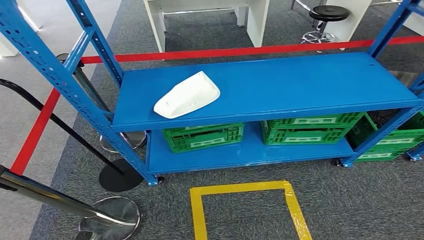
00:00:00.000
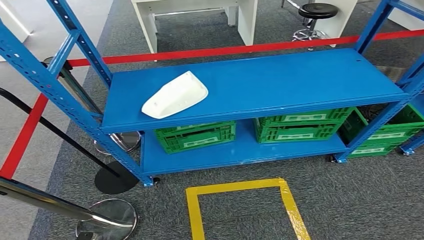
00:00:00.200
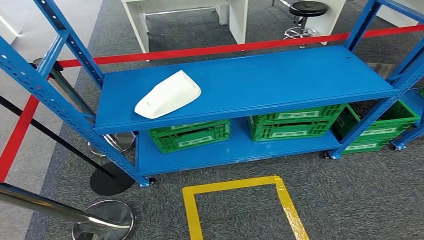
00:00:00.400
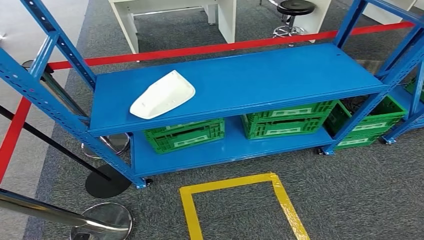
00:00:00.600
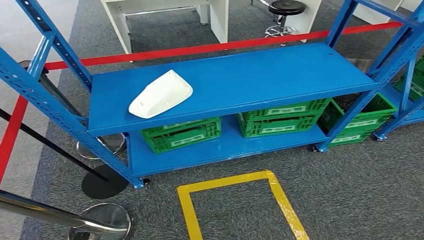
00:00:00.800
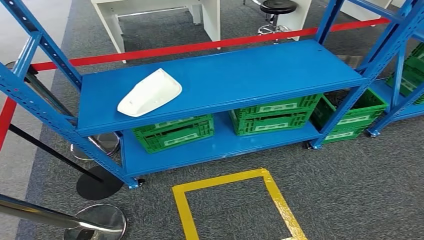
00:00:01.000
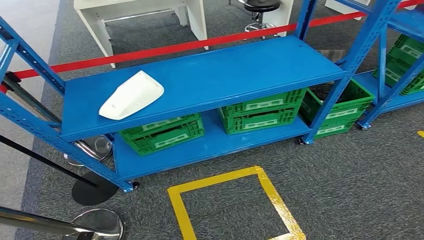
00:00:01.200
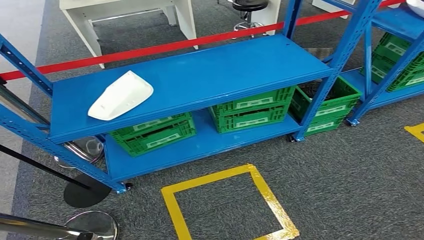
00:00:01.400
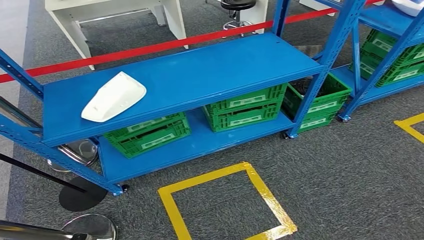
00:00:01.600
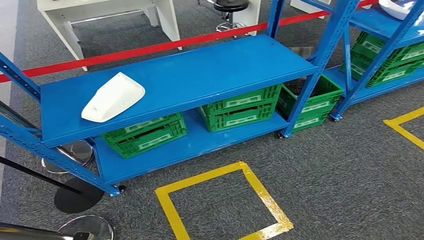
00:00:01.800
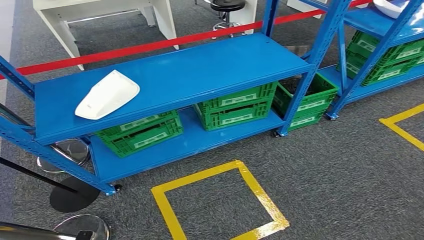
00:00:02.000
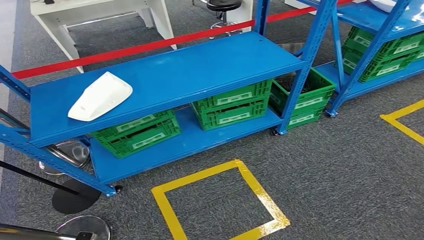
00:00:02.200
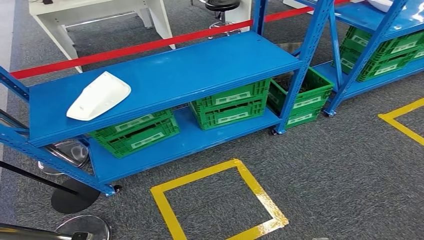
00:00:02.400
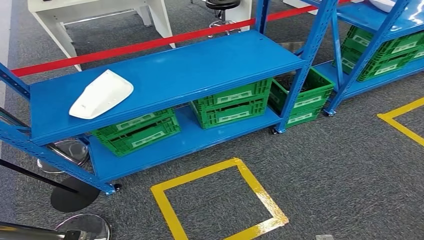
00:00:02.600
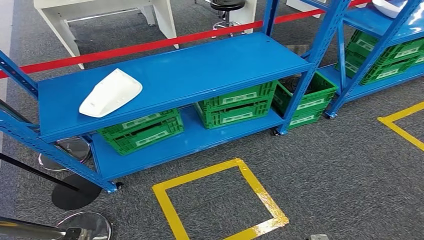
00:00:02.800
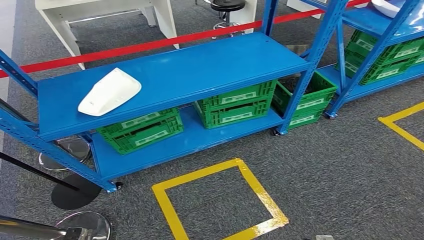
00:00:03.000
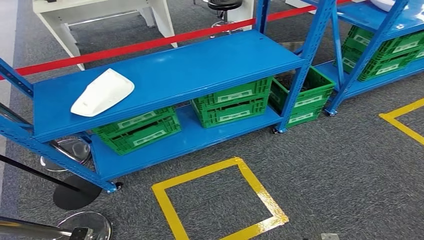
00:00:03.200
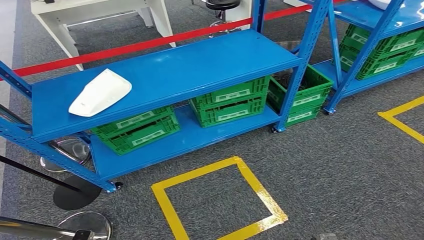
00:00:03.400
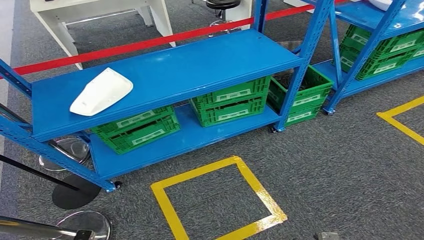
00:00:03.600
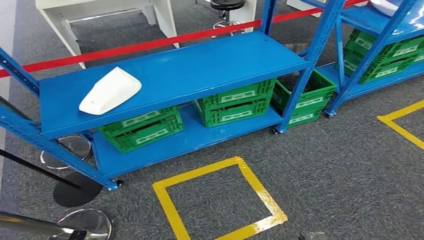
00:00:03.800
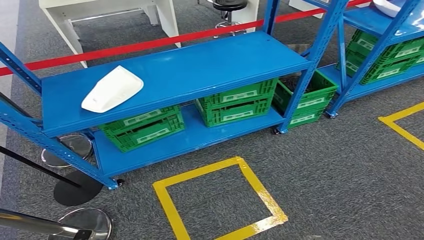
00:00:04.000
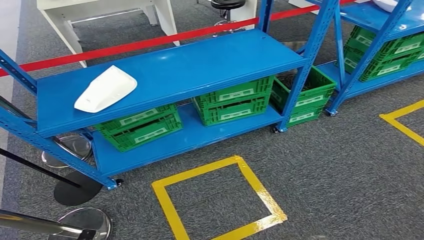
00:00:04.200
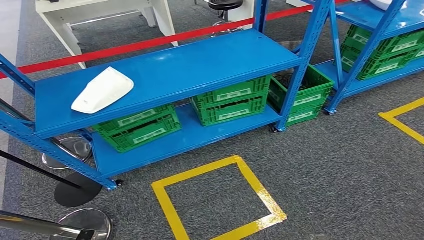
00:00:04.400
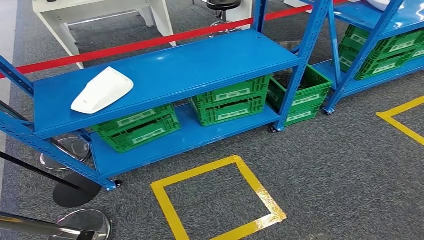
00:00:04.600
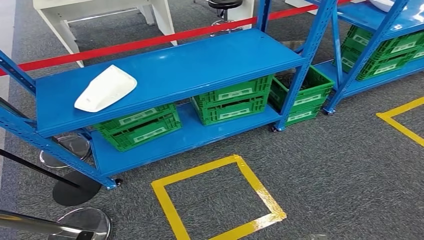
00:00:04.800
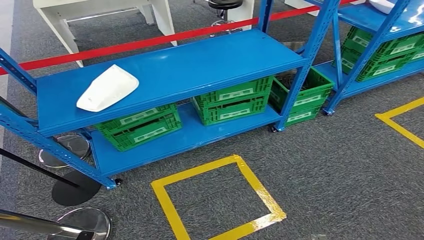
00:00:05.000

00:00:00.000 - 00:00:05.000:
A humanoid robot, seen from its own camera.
Step, 00:00:00.000 - 00:00:05.000: Move to the initial position of the workbench.
00:00:03.400 - 00:00:05.000: The hands move only a little.
